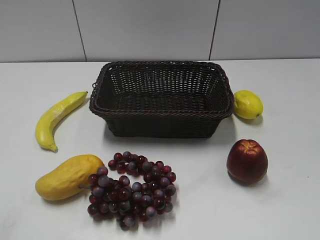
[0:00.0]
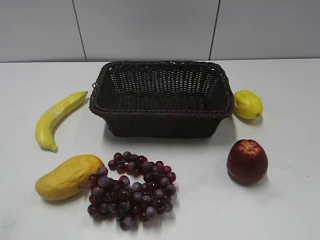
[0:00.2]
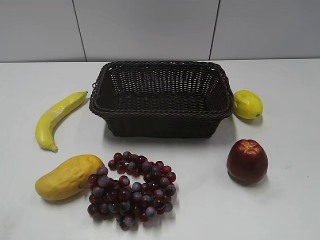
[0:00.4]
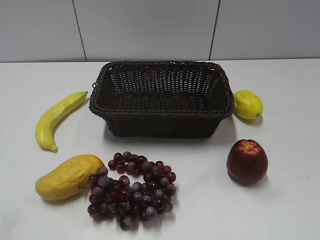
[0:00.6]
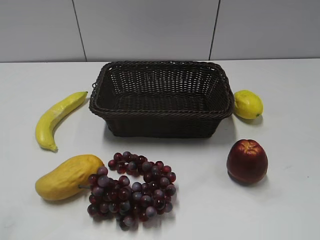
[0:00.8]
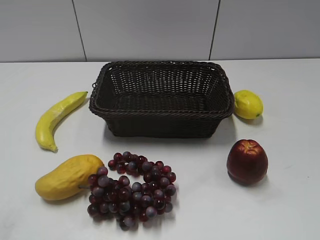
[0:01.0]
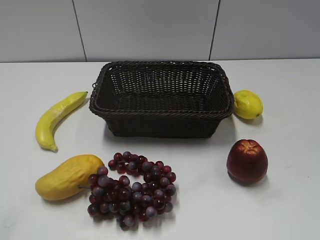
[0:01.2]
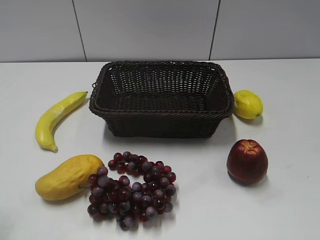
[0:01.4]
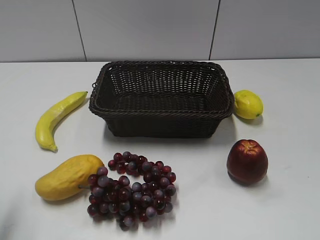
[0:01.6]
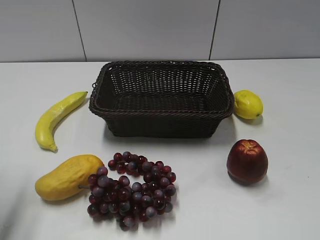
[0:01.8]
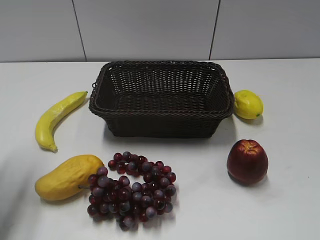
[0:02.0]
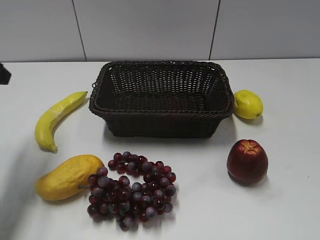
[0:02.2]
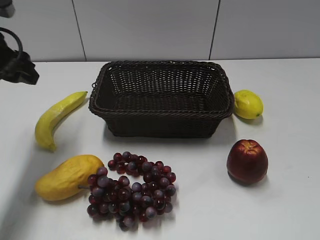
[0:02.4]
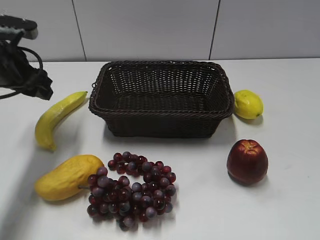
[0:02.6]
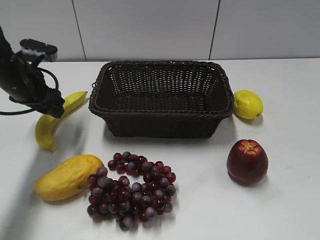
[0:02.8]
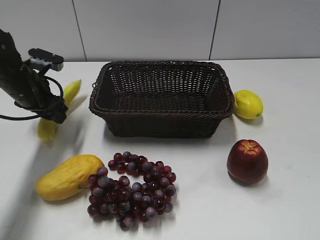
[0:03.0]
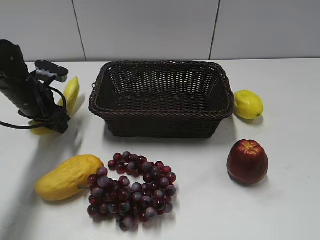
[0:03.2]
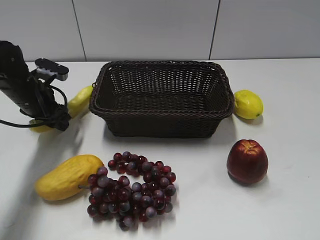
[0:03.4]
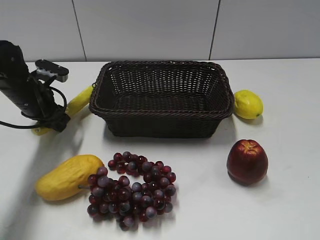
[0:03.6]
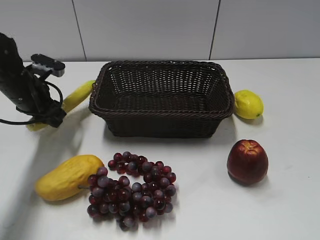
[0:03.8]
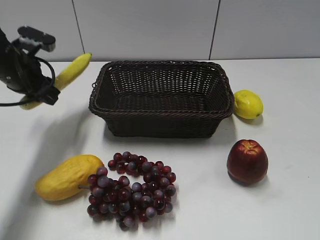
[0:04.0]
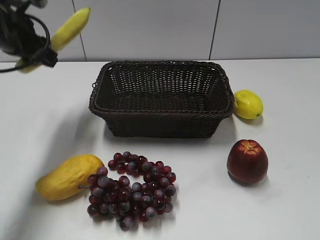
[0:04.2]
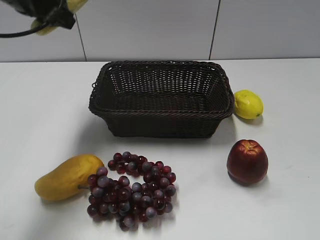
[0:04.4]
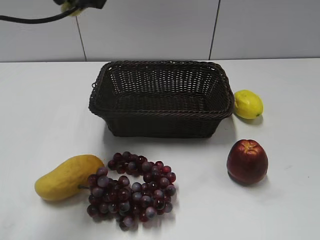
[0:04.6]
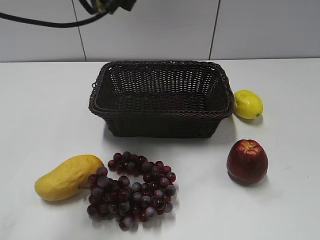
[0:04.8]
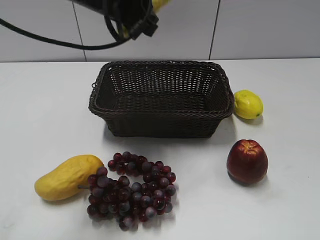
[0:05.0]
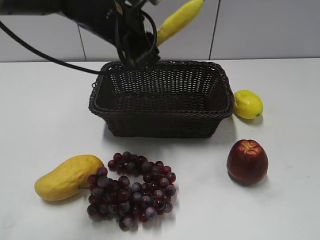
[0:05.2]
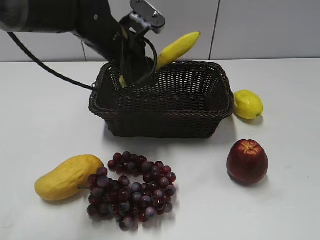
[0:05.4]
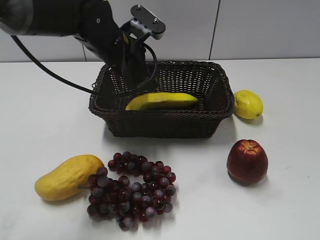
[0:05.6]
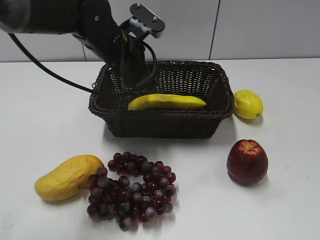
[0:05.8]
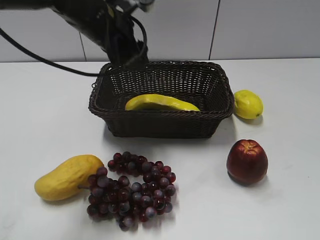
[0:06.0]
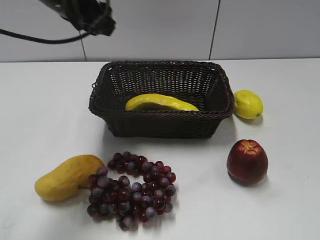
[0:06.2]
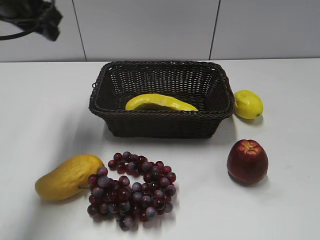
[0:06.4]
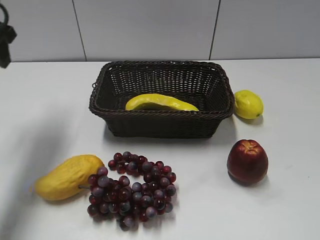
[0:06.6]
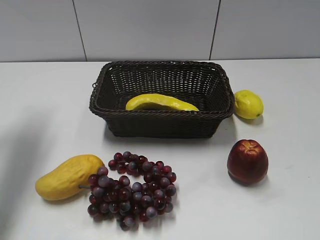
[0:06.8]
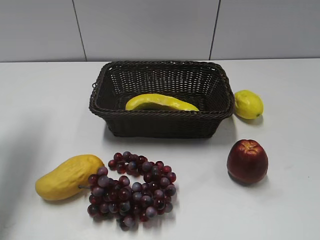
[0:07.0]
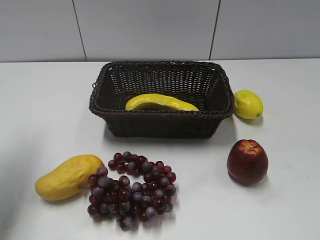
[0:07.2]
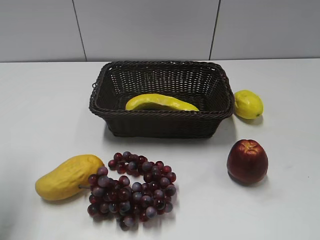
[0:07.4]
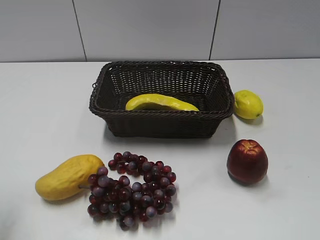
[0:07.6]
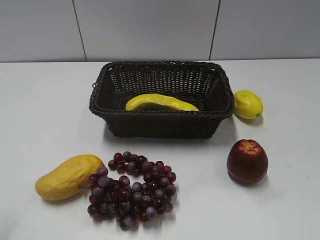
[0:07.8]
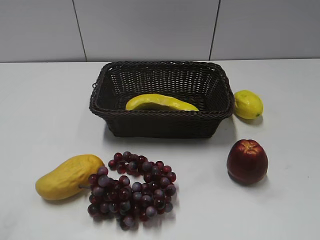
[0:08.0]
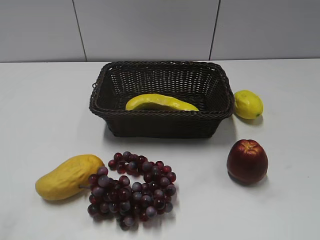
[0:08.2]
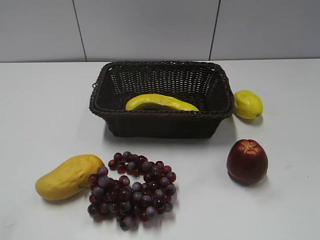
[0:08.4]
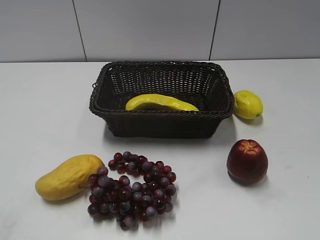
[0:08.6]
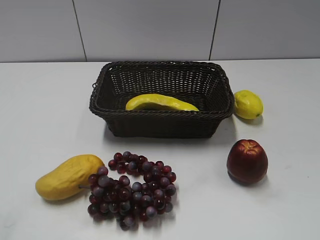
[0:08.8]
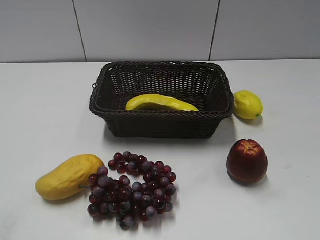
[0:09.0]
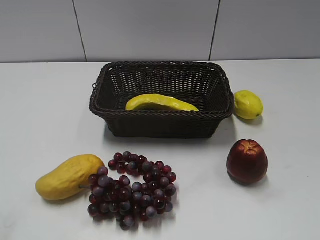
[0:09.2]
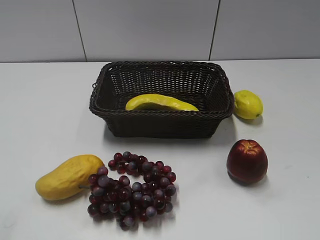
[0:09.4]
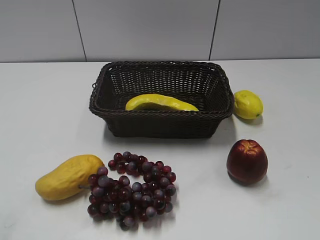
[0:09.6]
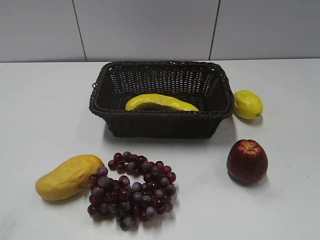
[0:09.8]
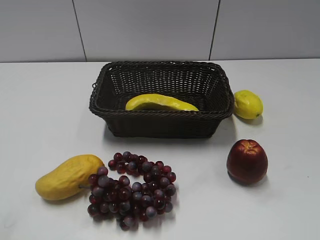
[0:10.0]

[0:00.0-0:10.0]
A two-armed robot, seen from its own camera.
Step, 0:02.2 to 0:03.4: Grasp the banana with left gripper.
Step, 0:03.8 to 0:05.8: Place the banana in the basket with left gripper.
0:01.4 to 0:02.8: The left gripper shifts about 35 cm forward and downward, and opens its fingers.
0:02.8 to 0:04.2: The left gripper moves upward, some 10 cm, and closes up.
0:04.2 to 0:05.8: The left gripper heads to the right, covering about 15 cm, and opens its fingers.
0:05.8 to 0:07.2: The left gripper shifts roughly 25 cm to the left and upward.
0:07.2 to 0:08.6: The left gripper is displaced backward by some 30 cm.
